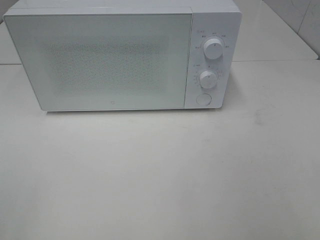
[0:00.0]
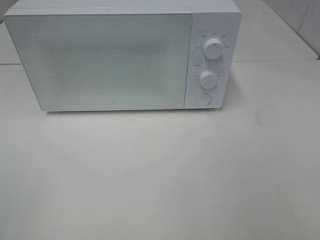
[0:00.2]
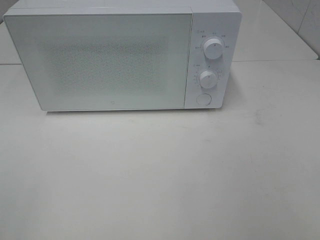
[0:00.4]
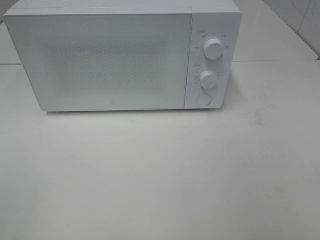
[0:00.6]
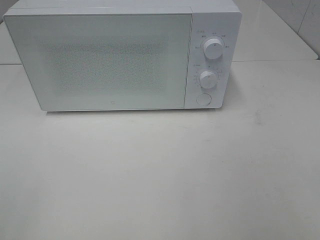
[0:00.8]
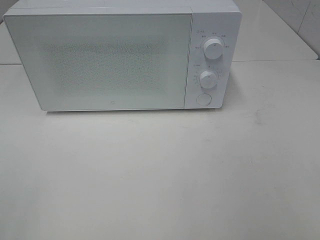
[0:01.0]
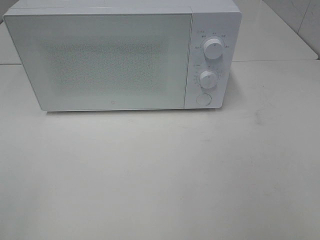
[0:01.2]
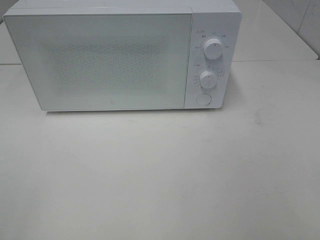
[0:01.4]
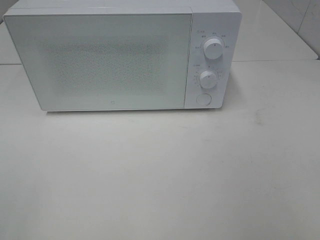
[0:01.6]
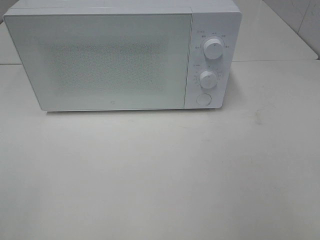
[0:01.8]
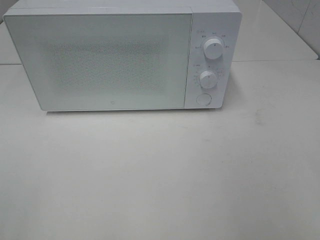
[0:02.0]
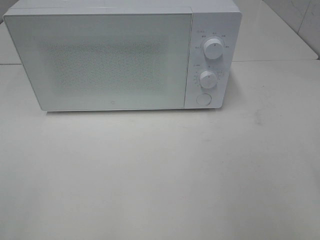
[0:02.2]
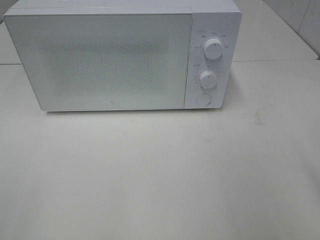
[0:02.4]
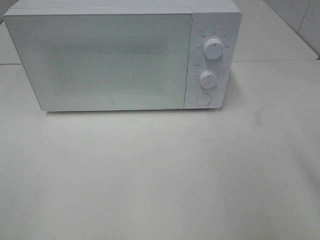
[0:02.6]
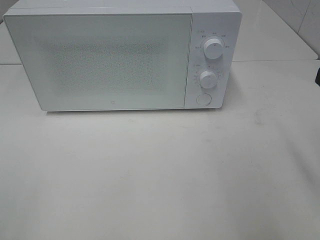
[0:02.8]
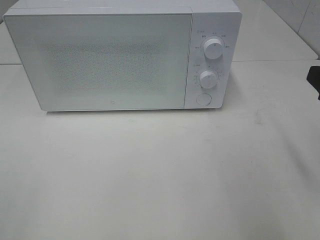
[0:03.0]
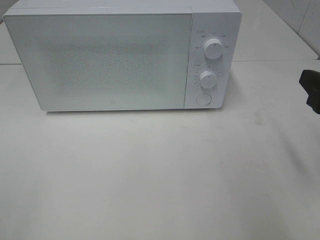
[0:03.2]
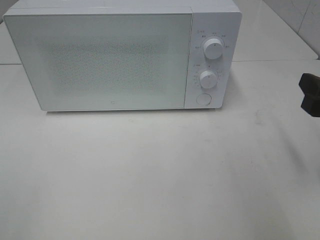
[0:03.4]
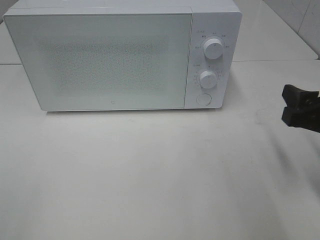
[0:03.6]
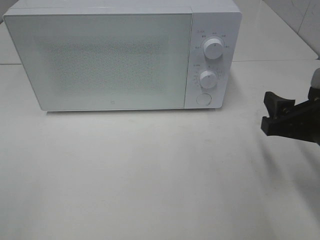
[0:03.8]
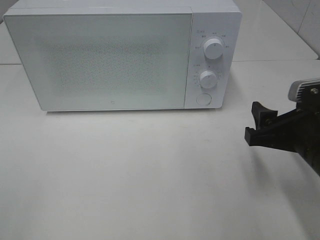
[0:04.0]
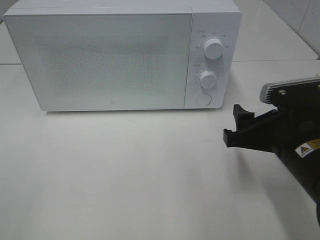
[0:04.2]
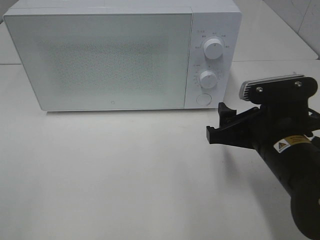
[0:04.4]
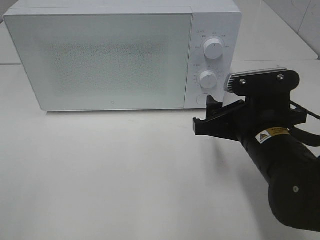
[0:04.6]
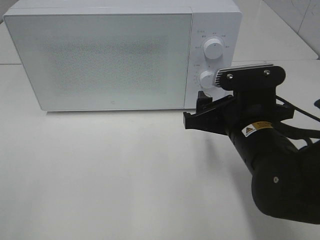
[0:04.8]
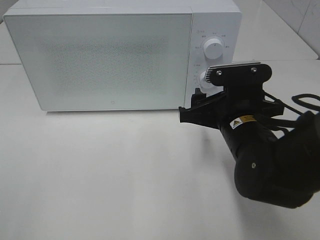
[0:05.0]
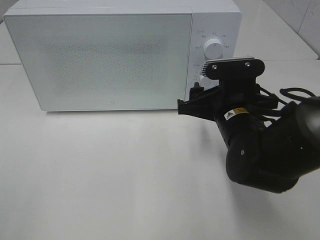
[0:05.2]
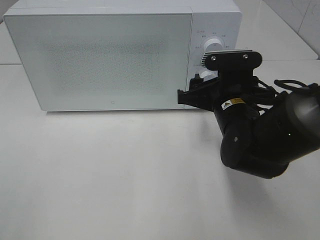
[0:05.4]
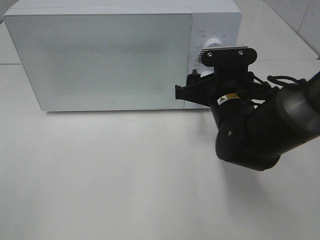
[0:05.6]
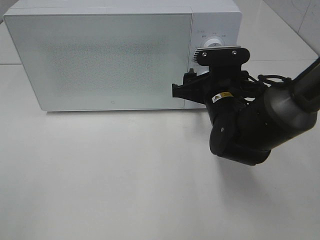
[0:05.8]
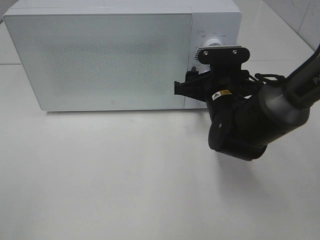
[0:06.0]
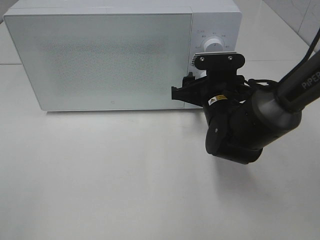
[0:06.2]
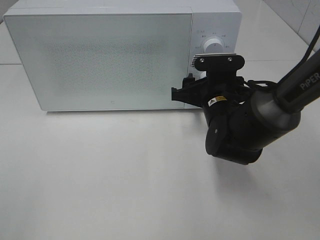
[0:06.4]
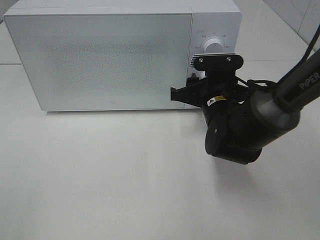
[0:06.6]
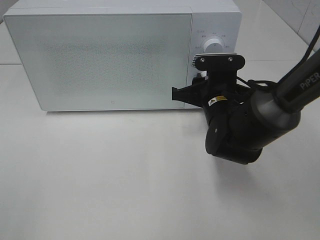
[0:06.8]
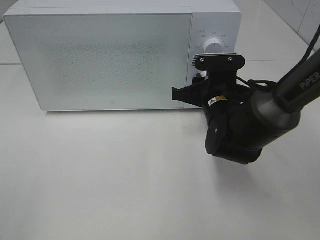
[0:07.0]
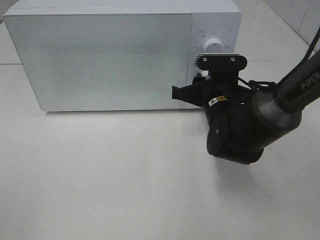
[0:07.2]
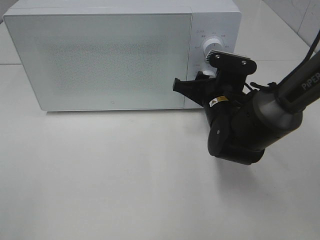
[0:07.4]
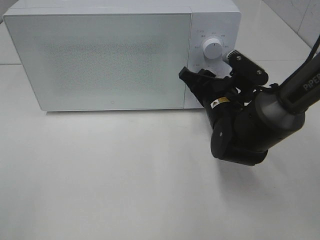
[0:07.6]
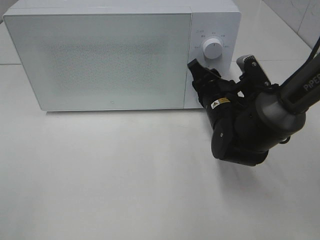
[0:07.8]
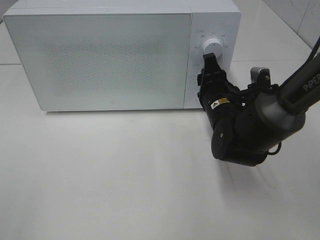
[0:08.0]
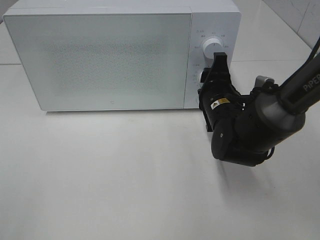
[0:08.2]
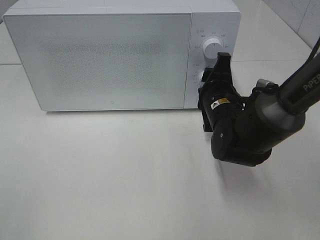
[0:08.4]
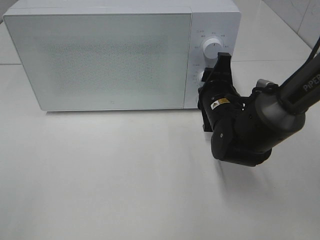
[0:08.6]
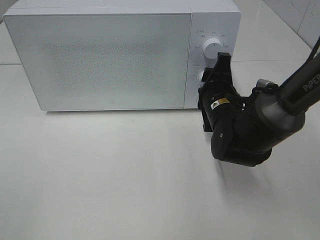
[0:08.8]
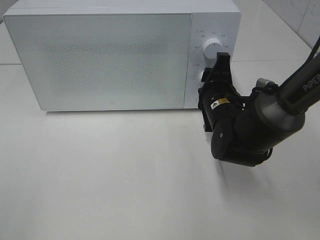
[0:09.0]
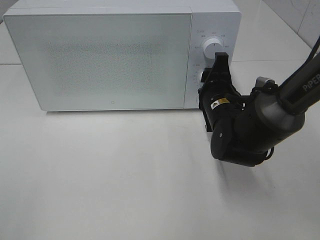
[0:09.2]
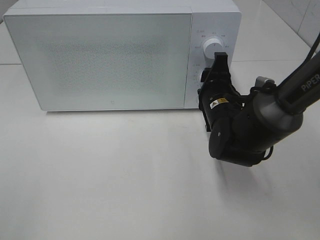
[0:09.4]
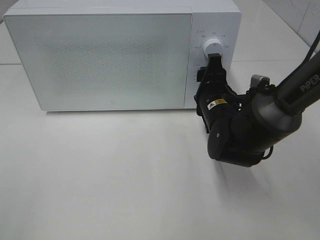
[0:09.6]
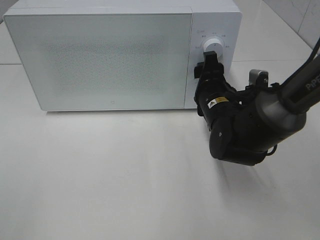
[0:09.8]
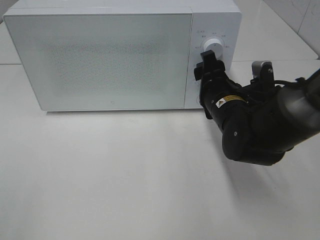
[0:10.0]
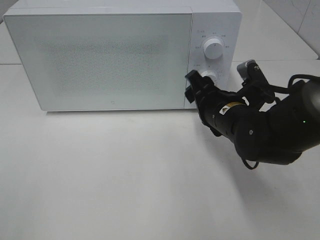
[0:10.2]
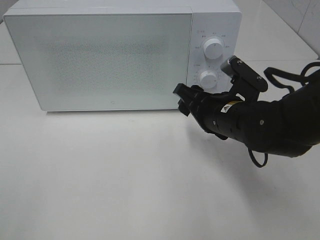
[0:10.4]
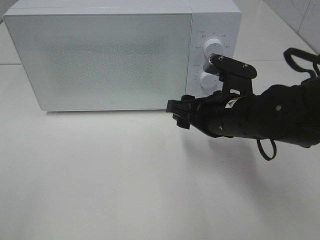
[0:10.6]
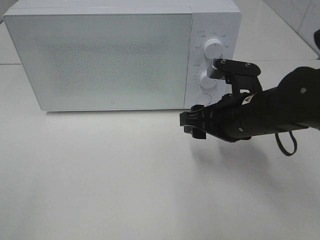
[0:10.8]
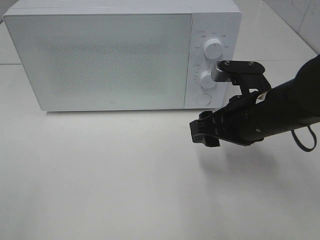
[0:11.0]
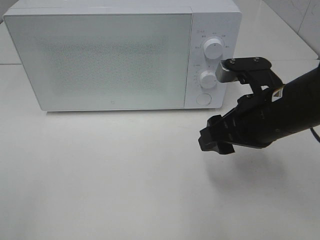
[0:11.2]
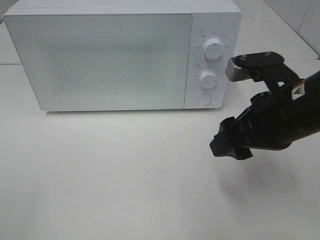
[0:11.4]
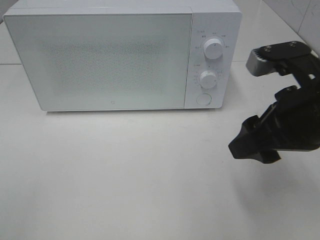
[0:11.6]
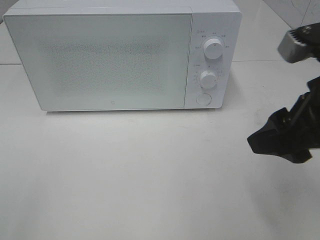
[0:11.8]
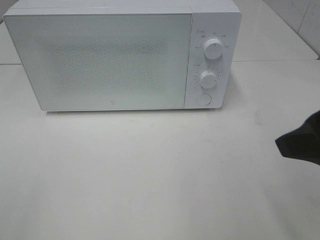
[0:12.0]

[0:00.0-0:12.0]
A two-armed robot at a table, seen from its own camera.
Task of the whole recording: Heat the burger.
Step, 0:00.0 to 0:09.6: Right hand: twist timer button.
0:03.0 to 0:04.4: The right gripper moves to the left and downward, about 15 cm.
0:04.4 to 0:06.0: The right gripper goes roughly 10 cm forward.
0:06.0 to 0:07.6: The right gripper closes up.
0:09.0 to 0:10.4: The right gripper ends up roughly 5 cm from where it was.
0:10.4 to 0:12.0: The right gripper moves upward, backward and to the right, roughly 25 cm.

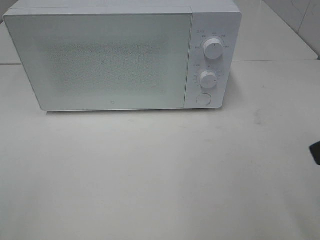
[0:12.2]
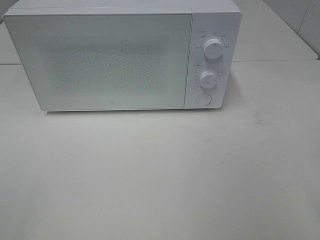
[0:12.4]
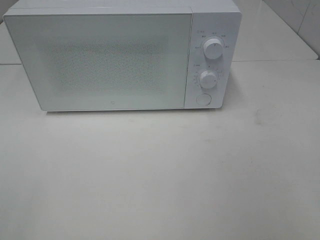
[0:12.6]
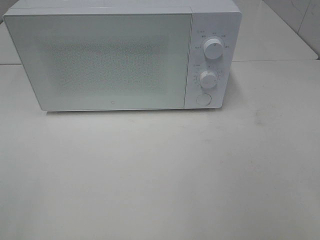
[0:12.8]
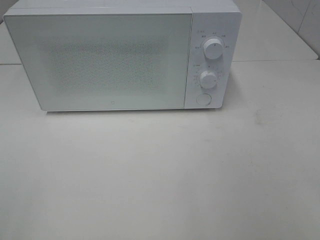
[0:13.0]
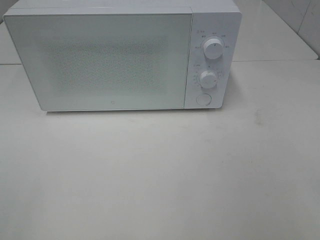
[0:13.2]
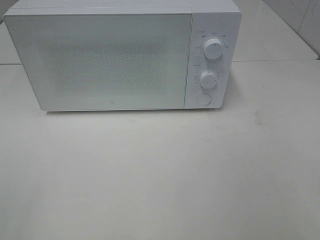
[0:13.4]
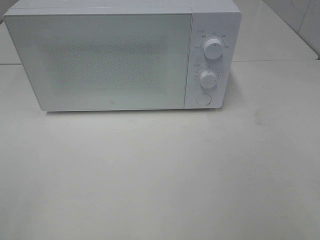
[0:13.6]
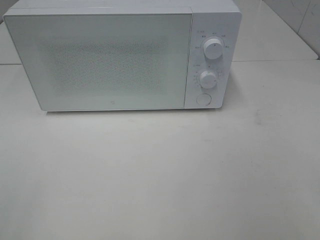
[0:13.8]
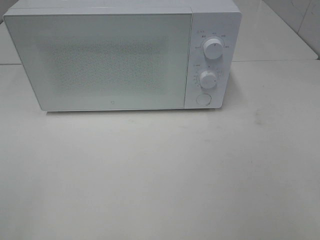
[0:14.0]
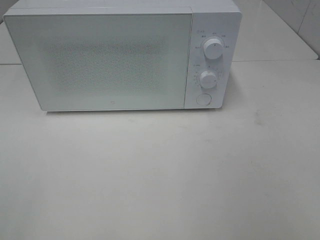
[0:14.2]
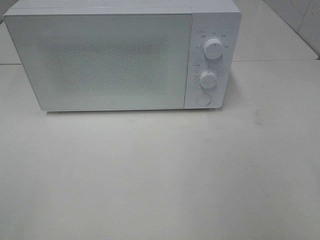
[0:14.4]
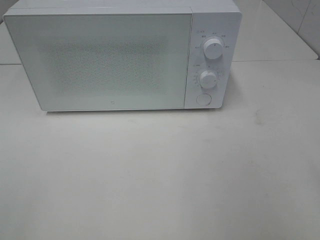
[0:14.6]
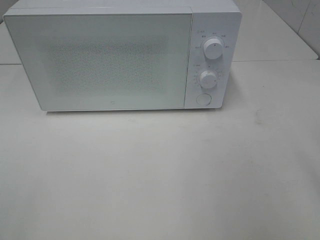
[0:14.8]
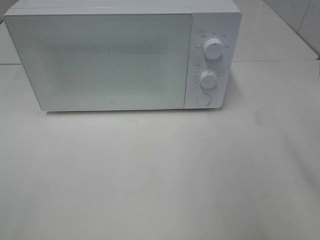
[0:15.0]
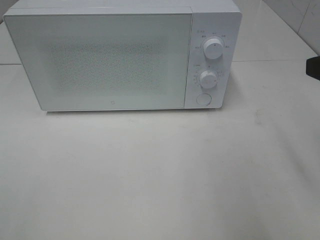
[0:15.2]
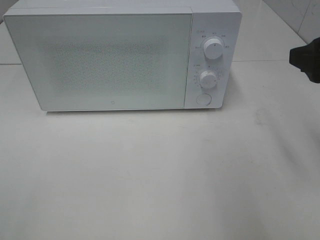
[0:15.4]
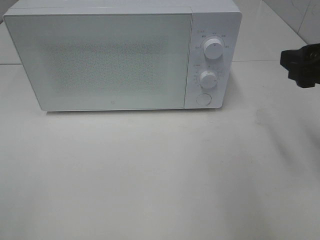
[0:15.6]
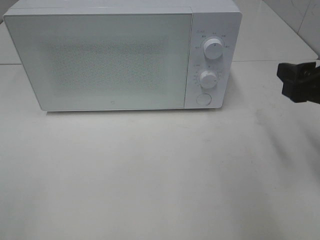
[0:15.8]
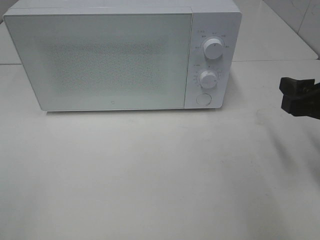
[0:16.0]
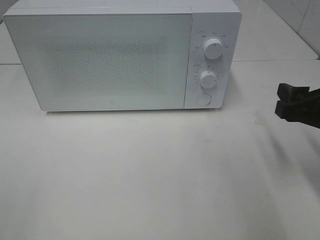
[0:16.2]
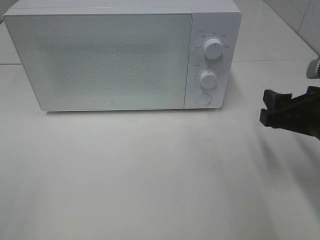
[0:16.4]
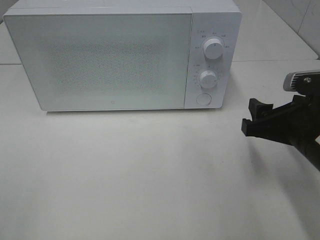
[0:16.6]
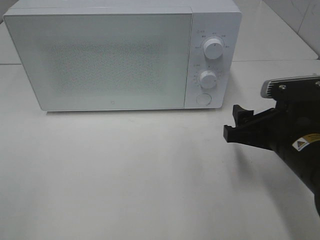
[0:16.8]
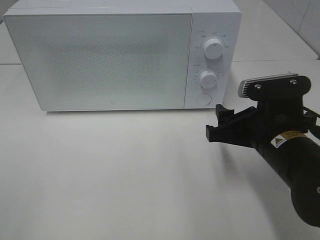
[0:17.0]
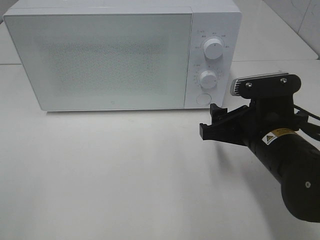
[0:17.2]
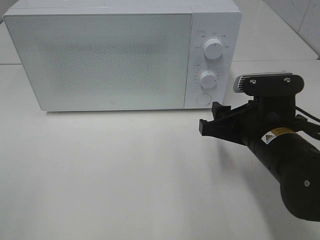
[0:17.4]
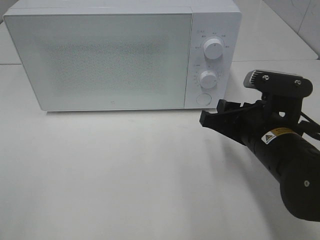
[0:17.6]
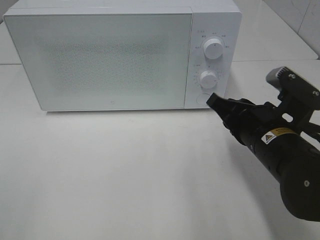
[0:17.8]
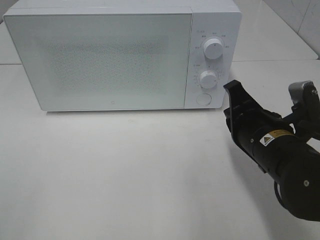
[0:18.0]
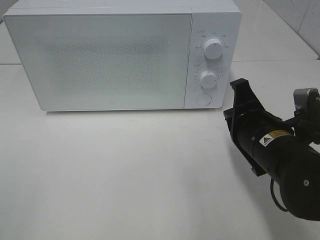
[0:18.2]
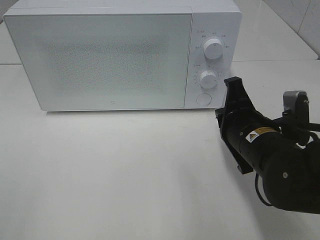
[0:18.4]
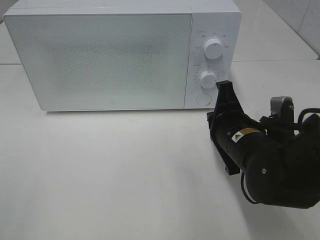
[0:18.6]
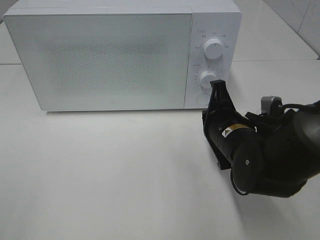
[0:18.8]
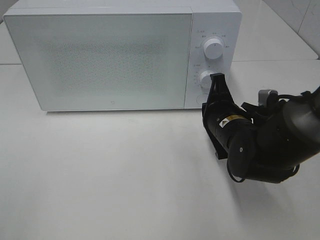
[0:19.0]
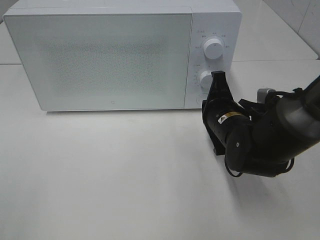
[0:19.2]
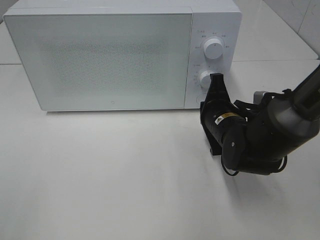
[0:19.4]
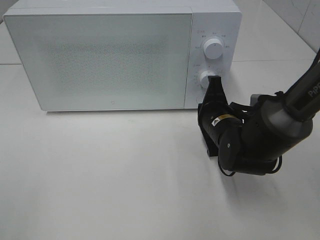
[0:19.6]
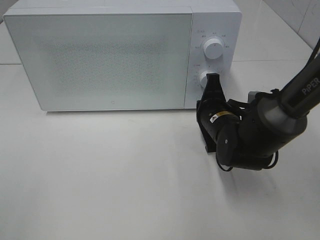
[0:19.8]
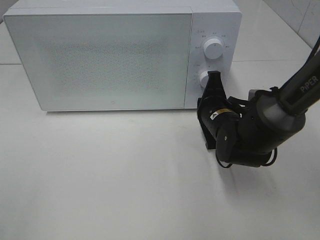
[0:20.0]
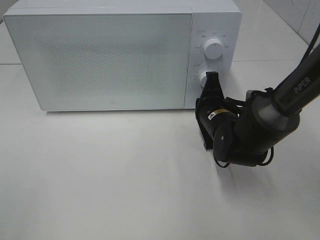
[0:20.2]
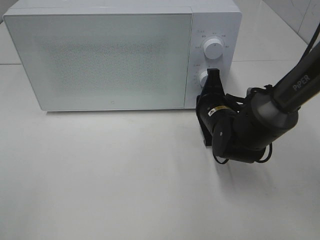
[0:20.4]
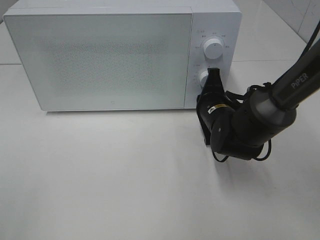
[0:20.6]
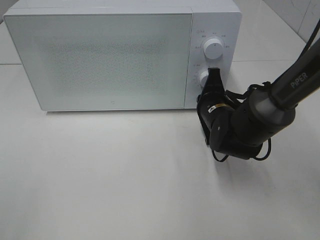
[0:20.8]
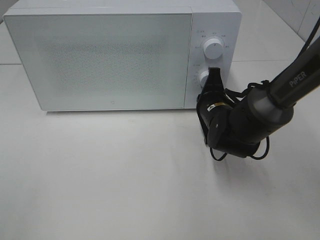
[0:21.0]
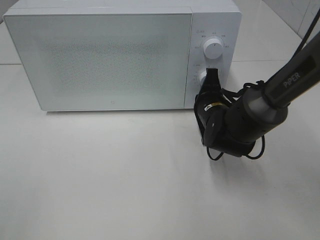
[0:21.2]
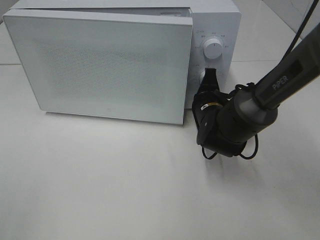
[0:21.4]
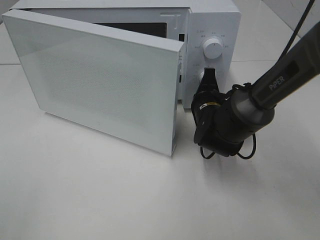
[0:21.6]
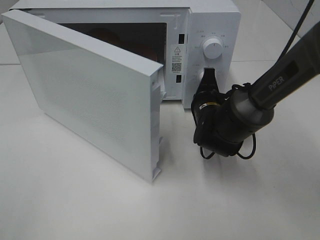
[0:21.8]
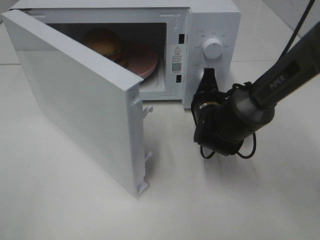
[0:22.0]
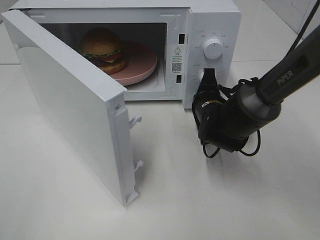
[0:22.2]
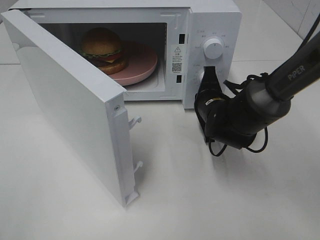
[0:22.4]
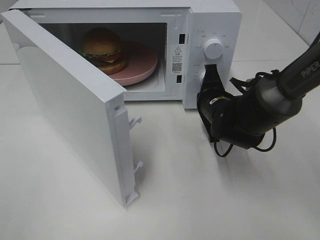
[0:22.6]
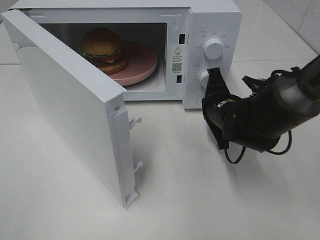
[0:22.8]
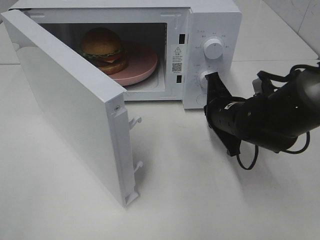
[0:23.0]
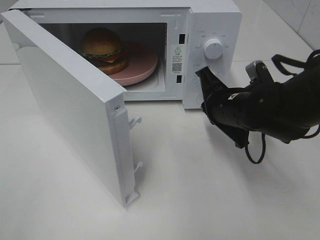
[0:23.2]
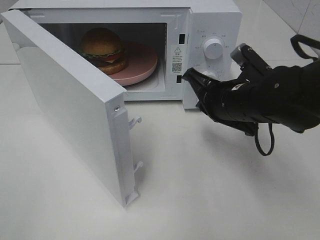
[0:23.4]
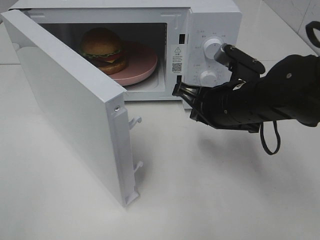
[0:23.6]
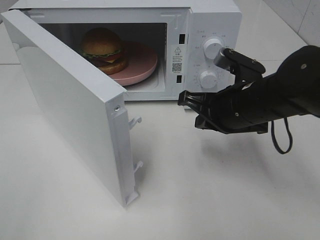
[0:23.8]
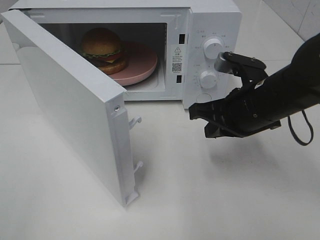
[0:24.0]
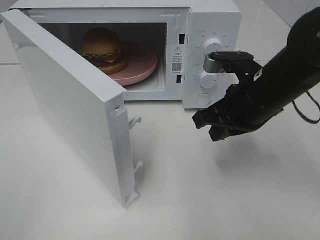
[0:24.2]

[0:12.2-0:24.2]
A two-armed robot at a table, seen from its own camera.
Task of the whole recording: Heat the burger.
Step, 0:12.2 to 0:22.8: Right hand: press the switch.
0:15.2 to 0:16.6: The right gripper heads downward, covering roughly 15 cm.
0:16.6 to 0:18.2: The right gripper travels to the left by approximately 5 cm, and closes its fingers.
0:18.2 to 0:19.8: The right gripper heads forward and downward, covering approximately 10 cm.
0:19.8 to 0:21.2: The grippers stay close to where they were, moving slightly.
0:22.6 to 0:24.2: The right gripper goes some 10 cm upward and backward.
